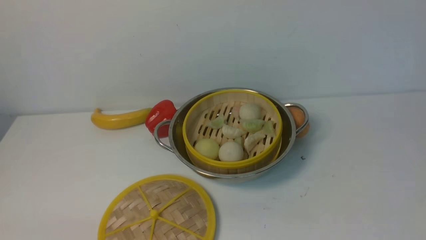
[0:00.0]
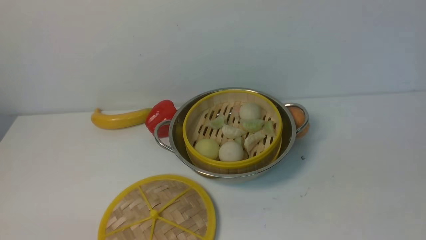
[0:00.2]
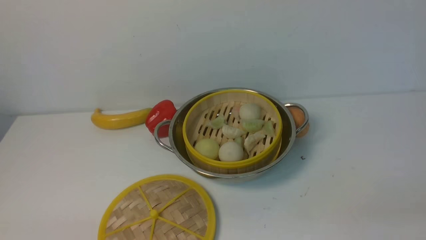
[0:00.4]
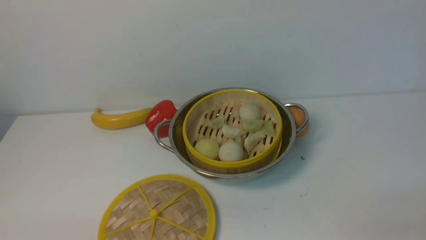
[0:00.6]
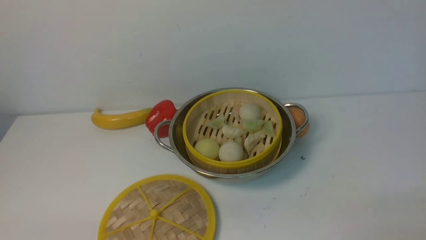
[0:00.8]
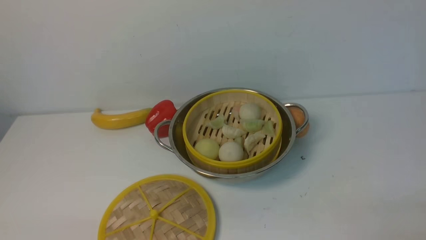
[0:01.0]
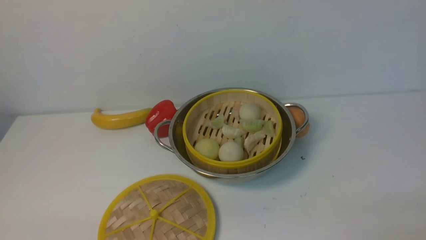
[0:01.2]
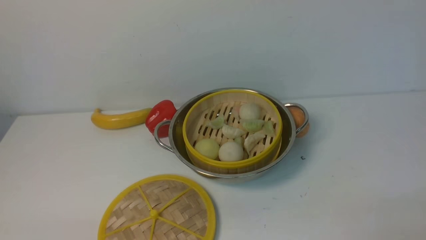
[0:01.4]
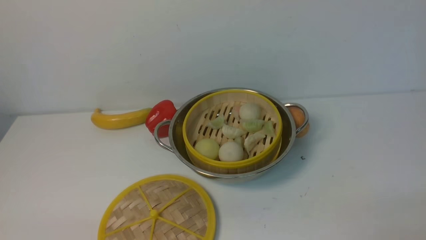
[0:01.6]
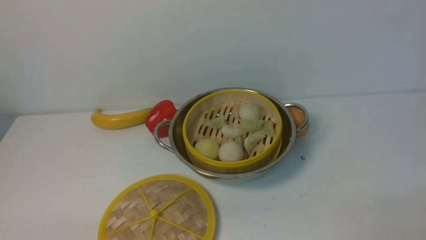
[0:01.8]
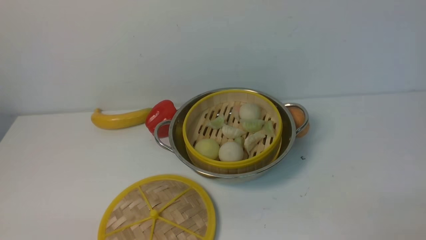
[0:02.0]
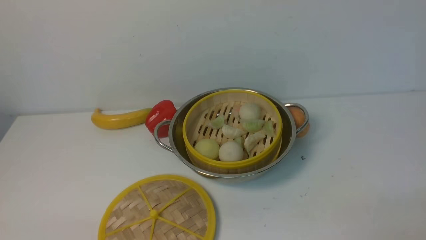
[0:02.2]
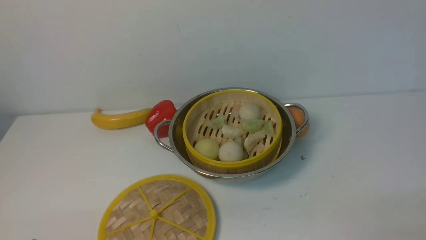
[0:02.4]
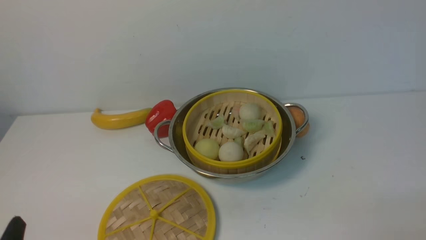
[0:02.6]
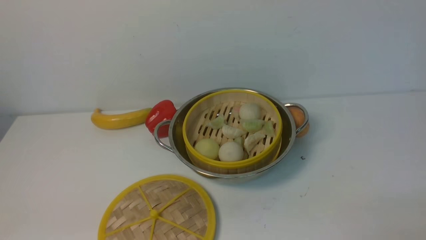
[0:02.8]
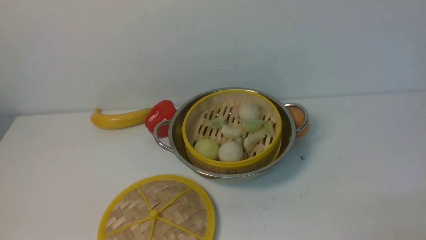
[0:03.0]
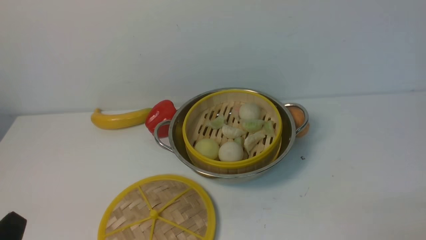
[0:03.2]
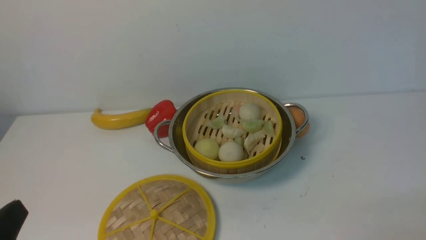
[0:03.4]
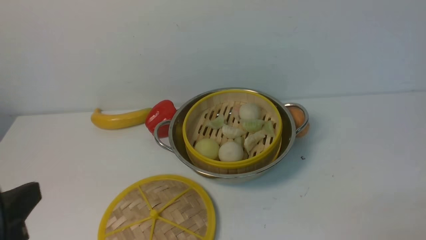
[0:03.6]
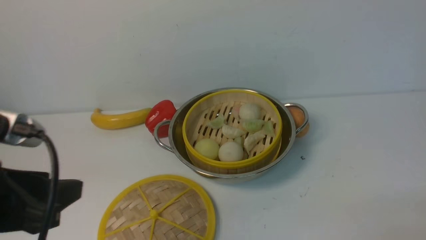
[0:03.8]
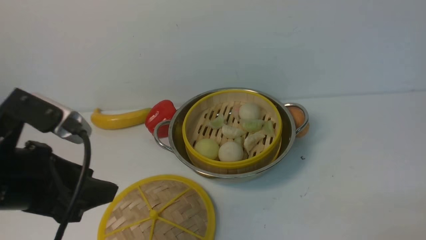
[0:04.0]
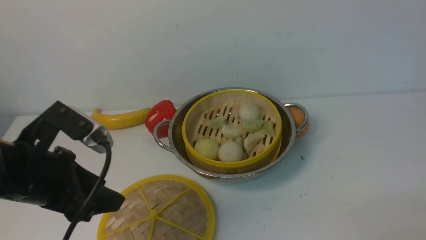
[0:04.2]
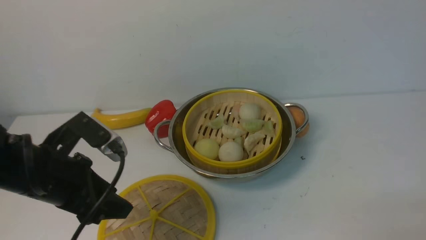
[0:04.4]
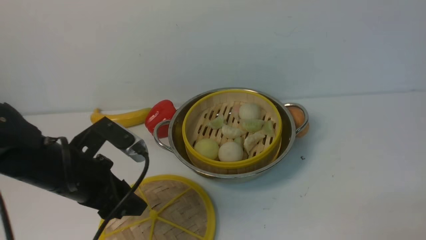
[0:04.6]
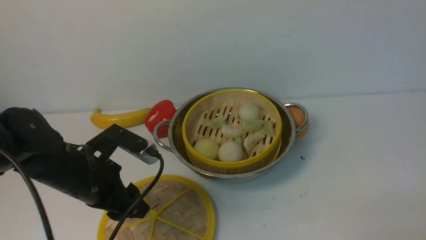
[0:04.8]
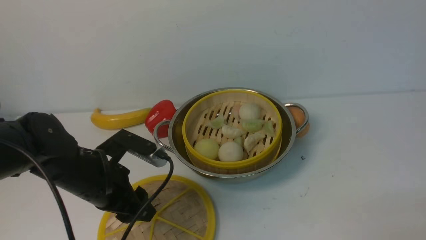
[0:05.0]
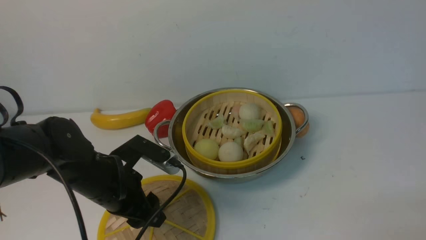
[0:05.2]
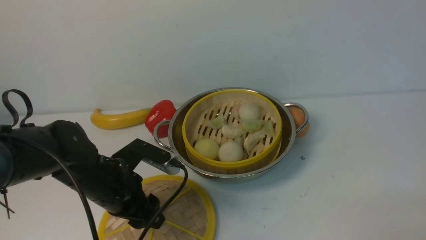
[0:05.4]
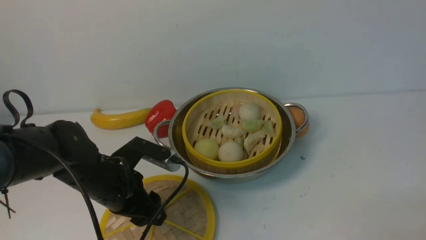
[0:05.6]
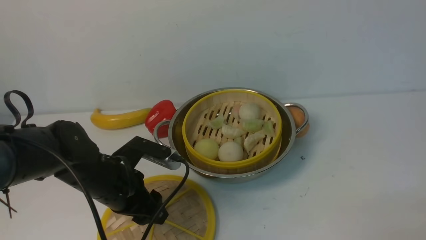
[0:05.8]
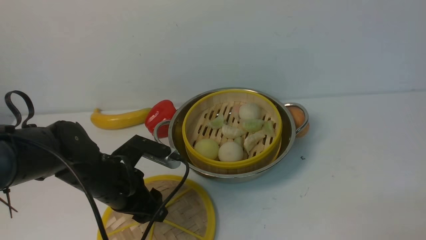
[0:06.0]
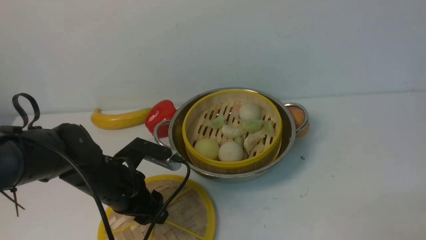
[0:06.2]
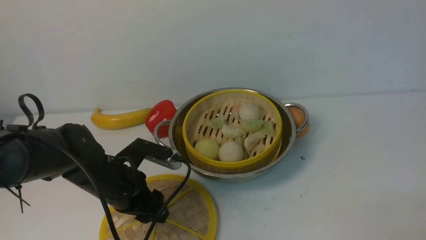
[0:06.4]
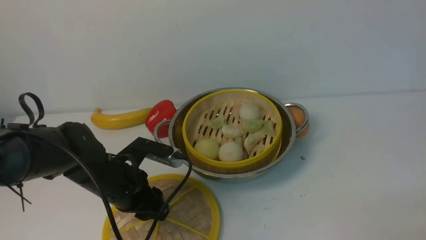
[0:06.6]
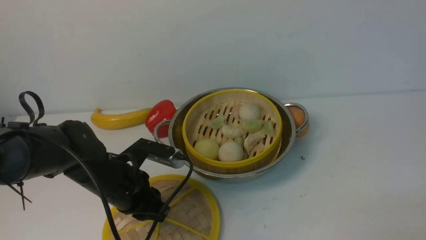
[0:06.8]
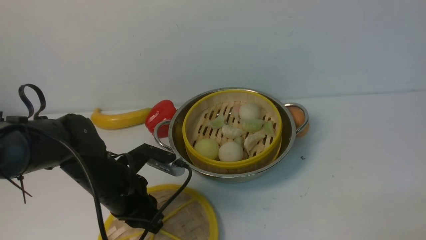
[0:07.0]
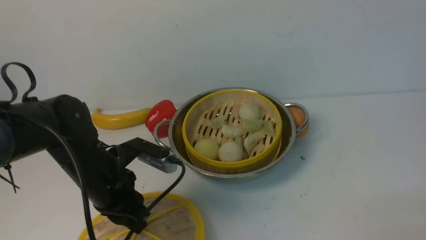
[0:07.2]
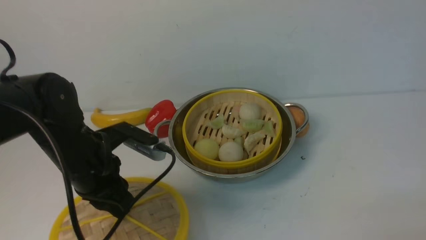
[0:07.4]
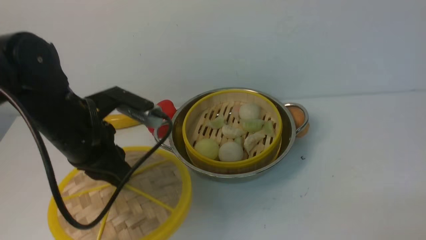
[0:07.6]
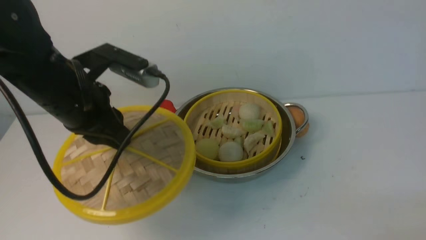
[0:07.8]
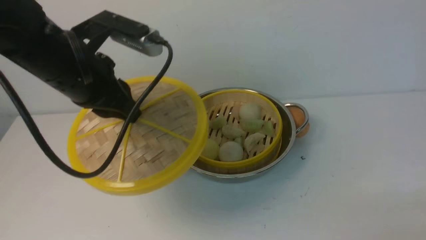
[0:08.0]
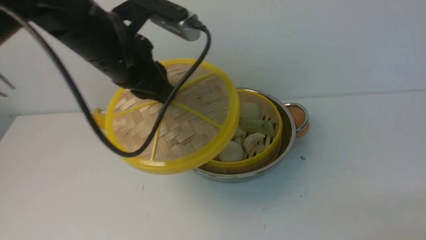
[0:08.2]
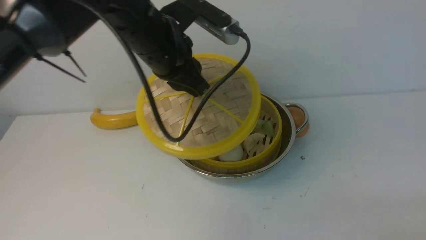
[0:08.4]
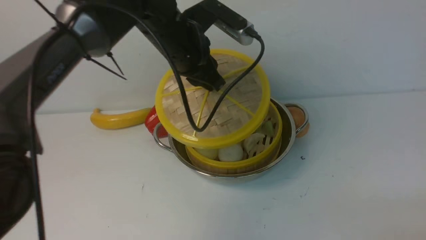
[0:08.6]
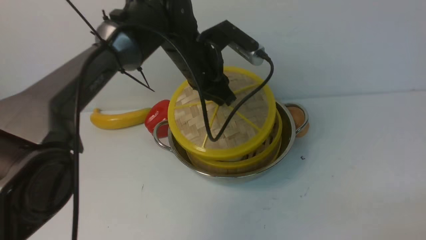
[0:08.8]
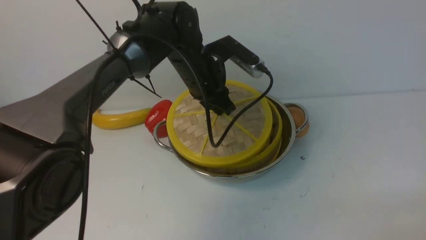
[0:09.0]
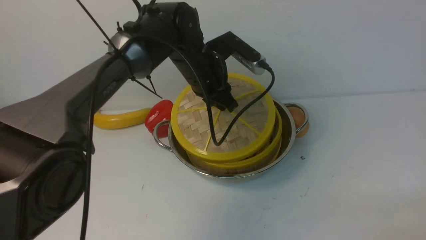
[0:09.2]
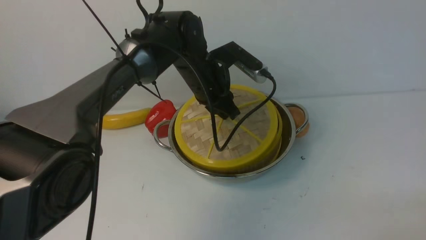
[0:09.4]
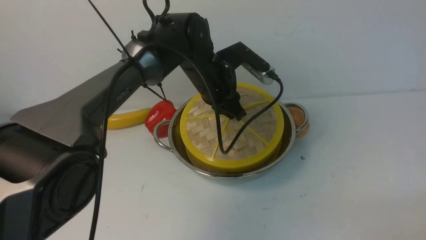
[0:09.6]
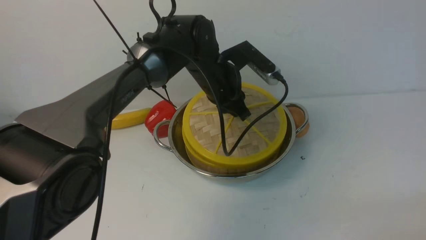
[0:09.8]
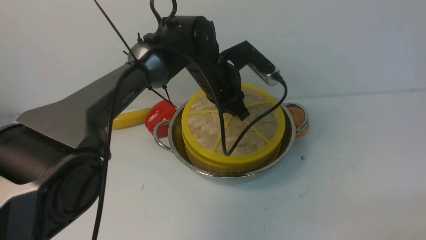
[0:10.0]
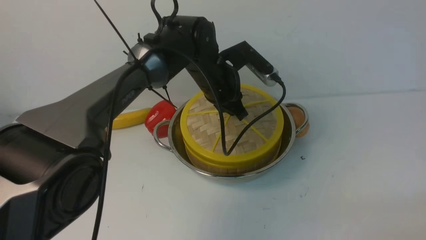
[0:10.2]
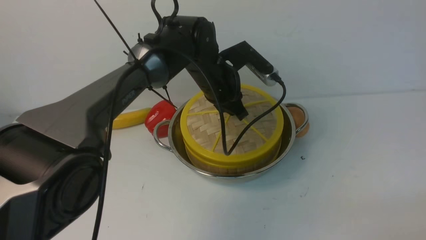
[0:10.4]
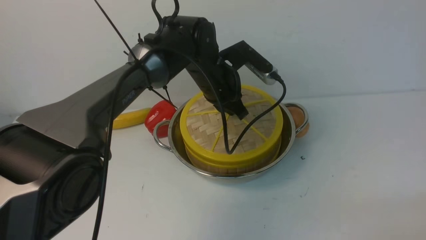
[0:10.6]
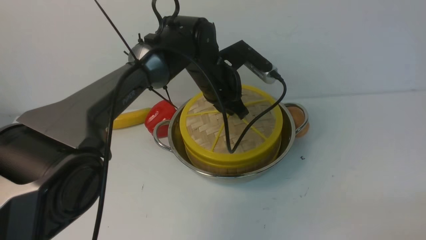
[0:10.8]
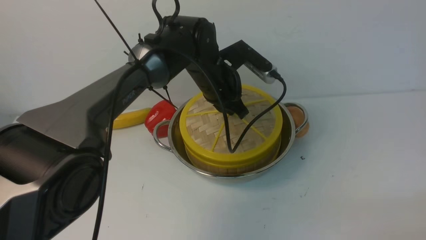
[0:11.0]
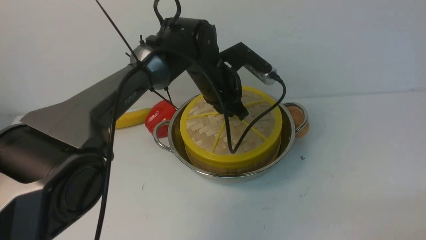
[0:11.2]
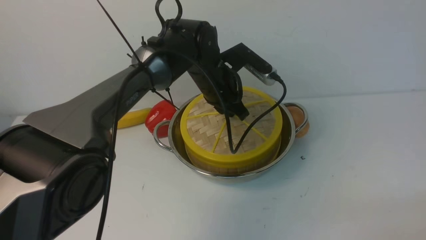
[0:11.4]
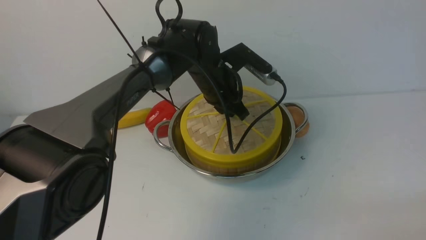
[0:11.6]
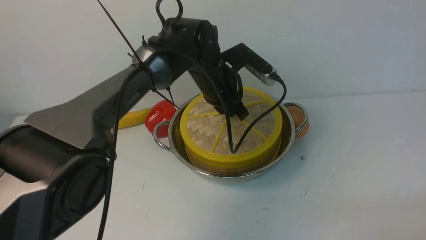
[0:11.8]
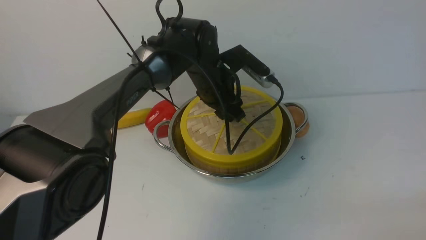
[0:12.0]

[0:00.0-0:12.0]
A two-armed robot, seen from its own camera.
Task of the whole recording: place the steamer in the pot on the white table, and put the lid on the steamer.
Step, 0:00.0 to 0:07.2: use the left arm to lift the lid of the steamer.
0:03.0 to 0:04.4: The left gripper is displaced forward by approximately 20 cm.
0:04.4 to 0:06.0: The left gripper travels downward by approximately 10 cm.
0:06.0 to 0:07.6: The left gripper goes roughly 10 cm upward, and closes.
0:07.6 to 0:09.0: The left gripper travels forward and to the right by some 20 cm.
0:09.0 to 0:10.4: The grippers move only a little.
0:10.4 to 0:12.0: The left gripper opens up.

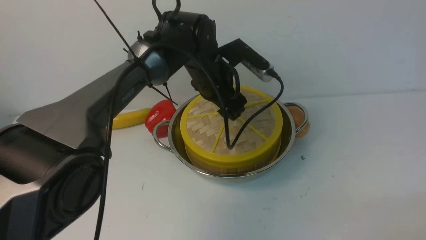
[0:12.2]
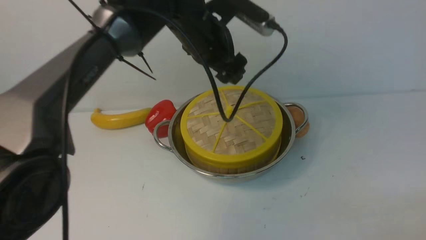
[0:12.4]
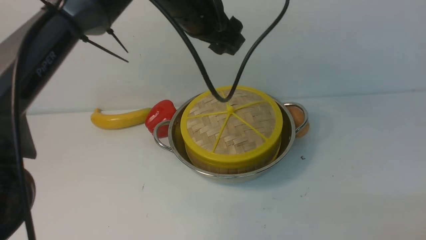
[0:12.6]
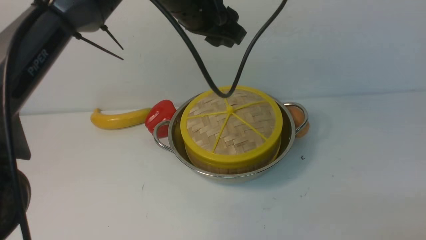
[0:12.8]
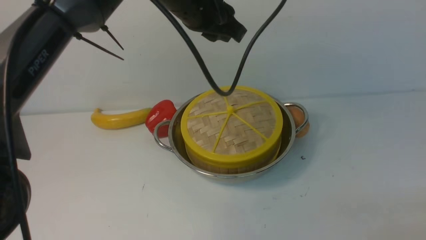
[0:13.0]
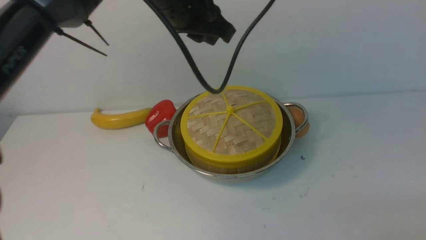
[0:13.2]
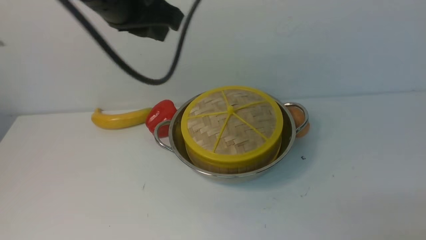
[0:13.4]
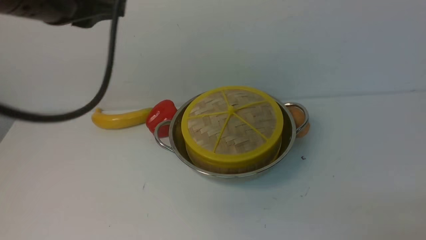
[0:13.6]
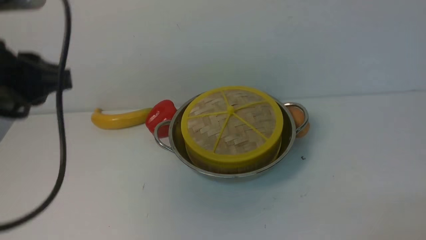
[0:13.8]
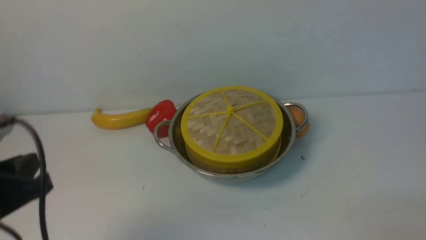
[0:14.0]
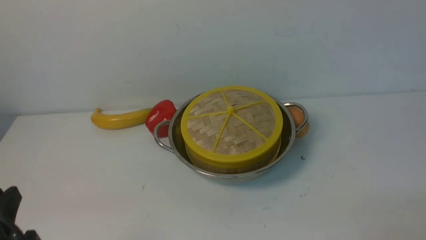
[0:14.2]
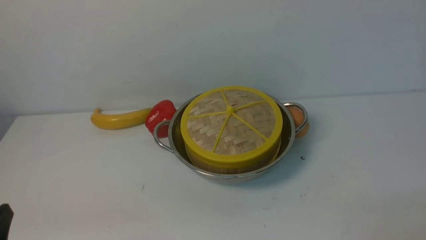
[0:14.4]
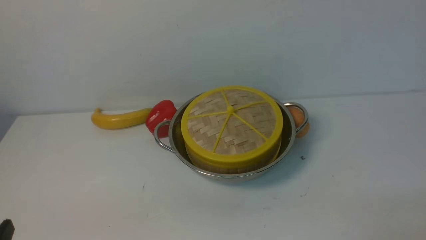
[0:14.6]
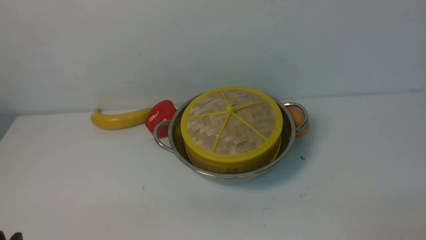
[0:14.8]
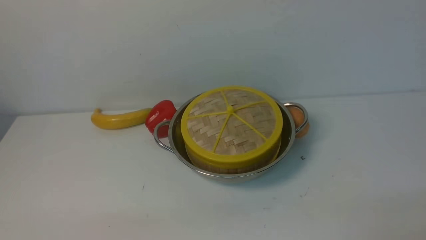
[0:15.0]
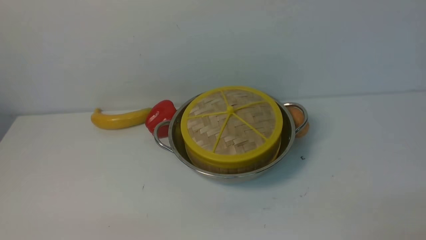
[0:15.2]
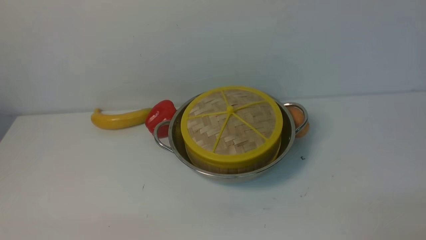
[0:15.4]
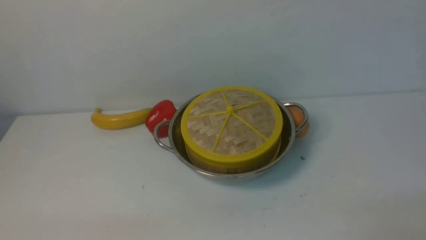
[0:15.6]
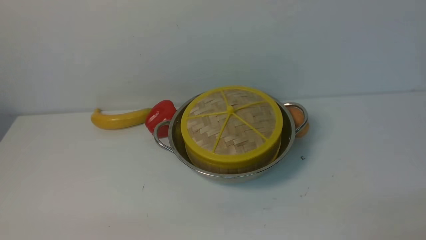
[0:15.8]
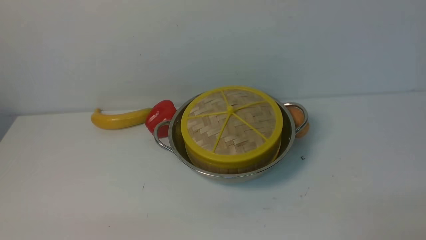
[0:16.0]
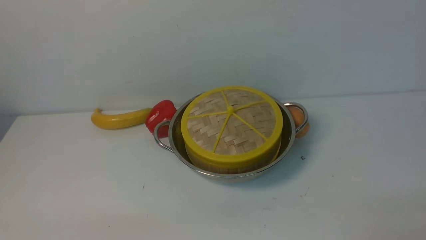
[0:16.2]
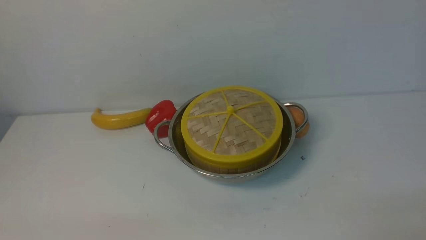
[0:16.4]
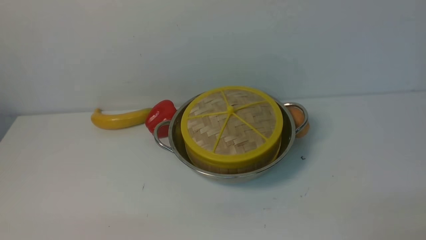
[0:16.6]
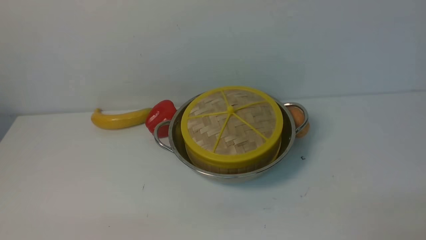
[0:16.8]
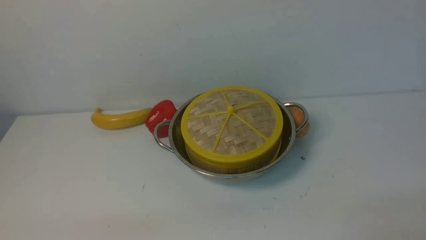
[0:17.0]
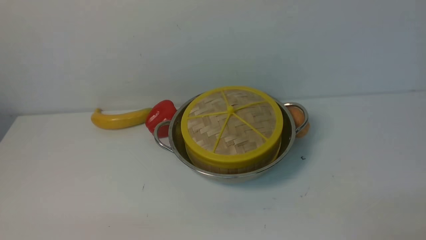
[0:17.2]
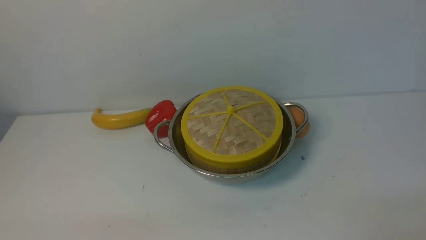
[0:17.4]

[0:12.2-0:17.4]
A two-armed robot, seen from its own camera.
Task of the whole recording: place the steamer in the pot on the white table, and put the lid on the steamer.
0:12.2 to 0:14.0: The left gripper moves backward and to the left, some 40 cm, and closes up.
0:14.0 to 0:15.6: The left gripper travels downward and backward by about 15 cm.
0:15.6 to 0:17.4: Both grippers stay about where they are.
